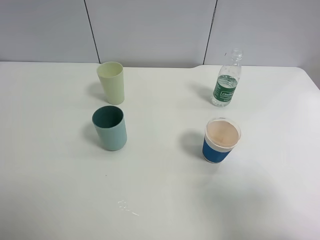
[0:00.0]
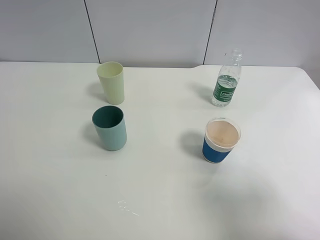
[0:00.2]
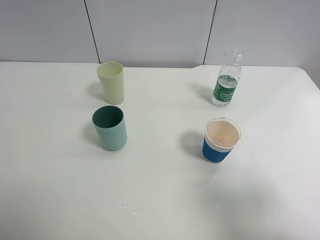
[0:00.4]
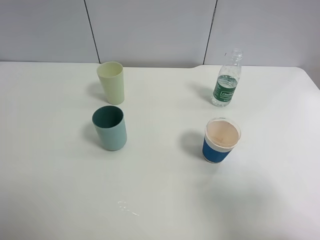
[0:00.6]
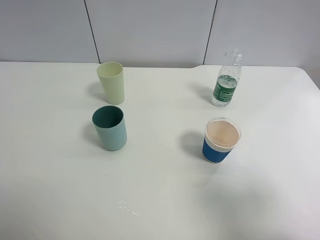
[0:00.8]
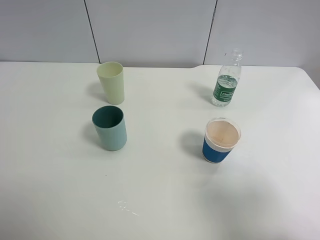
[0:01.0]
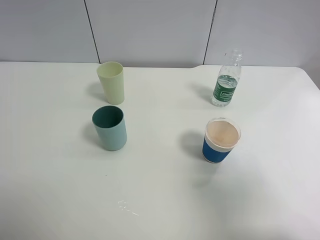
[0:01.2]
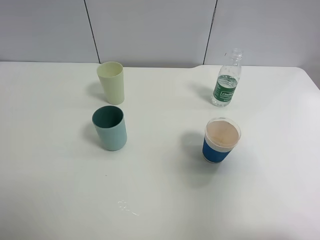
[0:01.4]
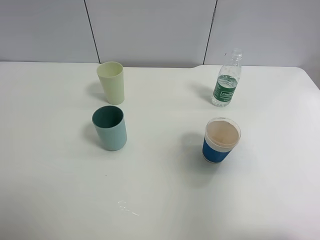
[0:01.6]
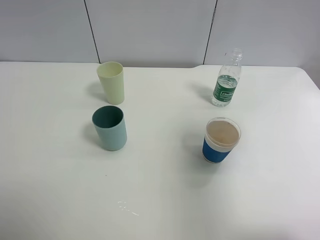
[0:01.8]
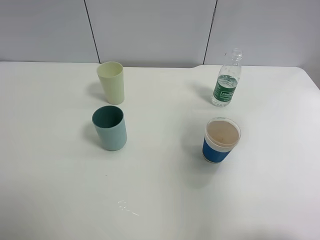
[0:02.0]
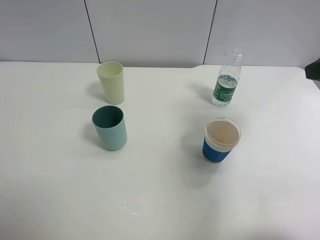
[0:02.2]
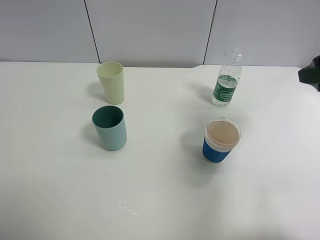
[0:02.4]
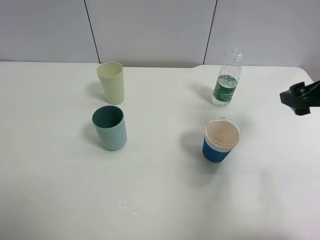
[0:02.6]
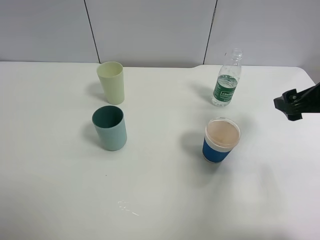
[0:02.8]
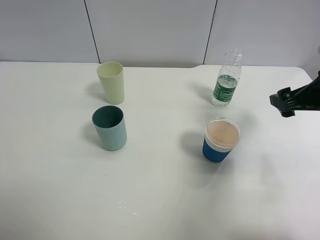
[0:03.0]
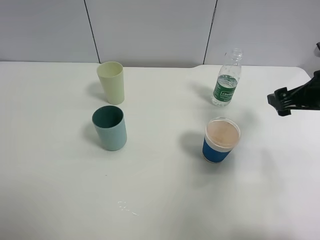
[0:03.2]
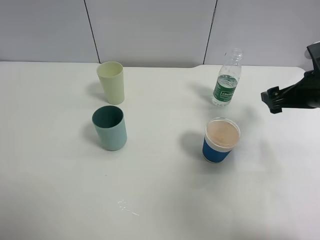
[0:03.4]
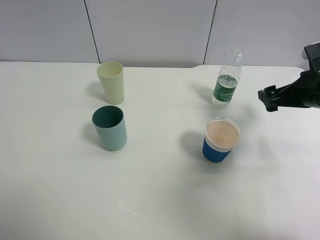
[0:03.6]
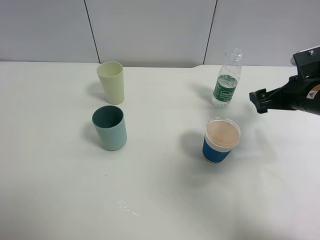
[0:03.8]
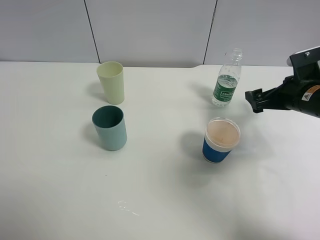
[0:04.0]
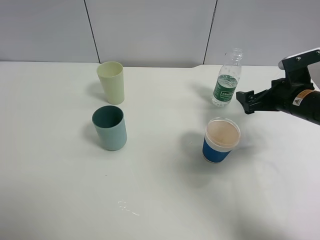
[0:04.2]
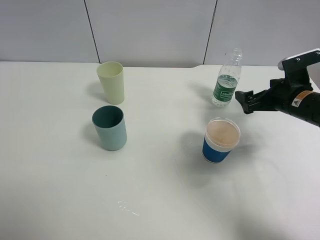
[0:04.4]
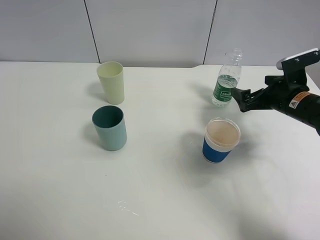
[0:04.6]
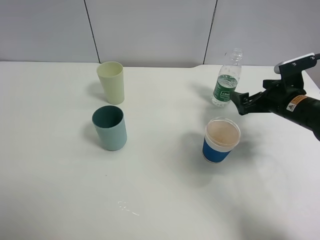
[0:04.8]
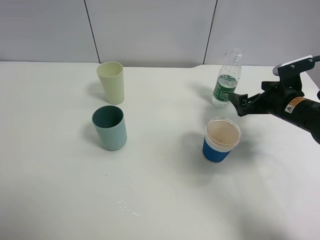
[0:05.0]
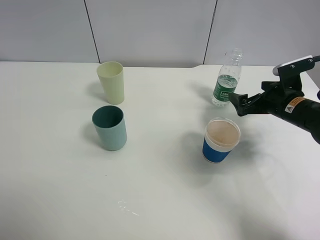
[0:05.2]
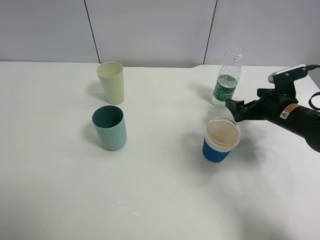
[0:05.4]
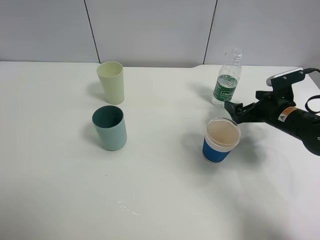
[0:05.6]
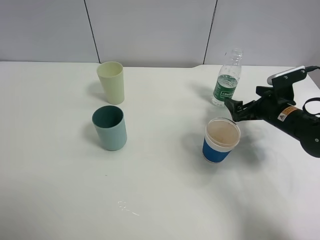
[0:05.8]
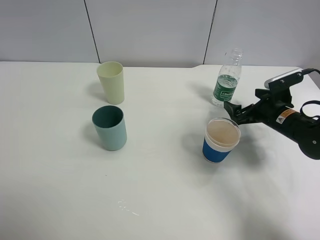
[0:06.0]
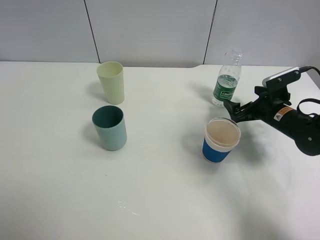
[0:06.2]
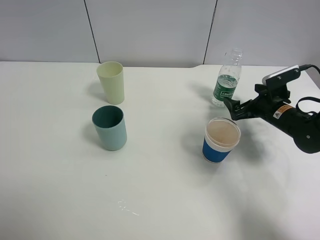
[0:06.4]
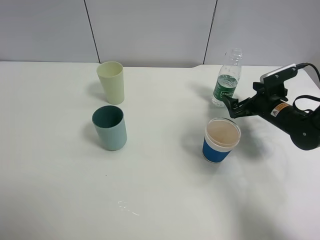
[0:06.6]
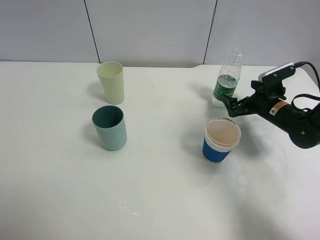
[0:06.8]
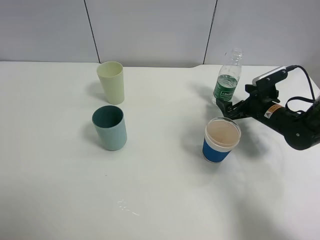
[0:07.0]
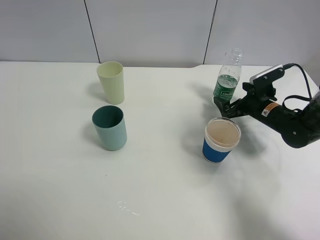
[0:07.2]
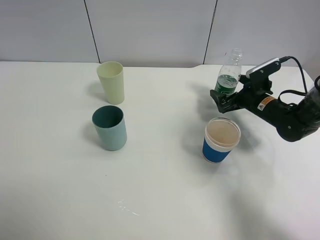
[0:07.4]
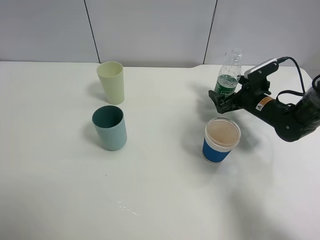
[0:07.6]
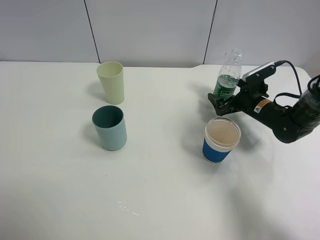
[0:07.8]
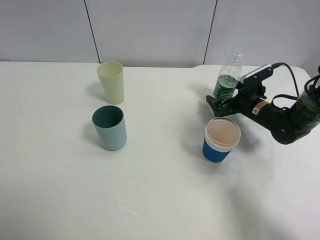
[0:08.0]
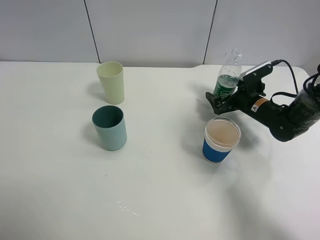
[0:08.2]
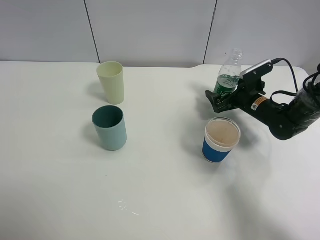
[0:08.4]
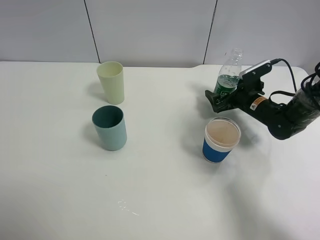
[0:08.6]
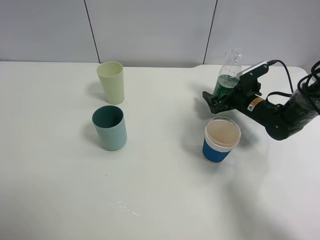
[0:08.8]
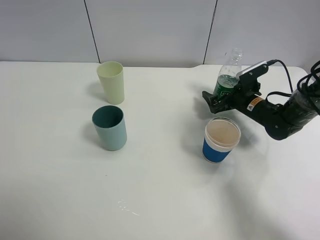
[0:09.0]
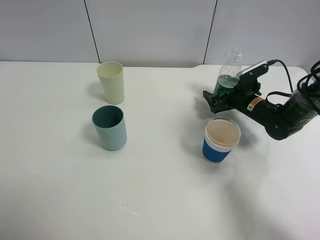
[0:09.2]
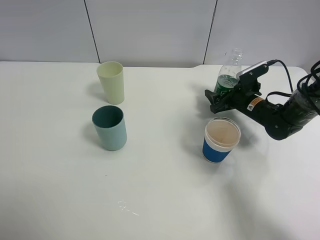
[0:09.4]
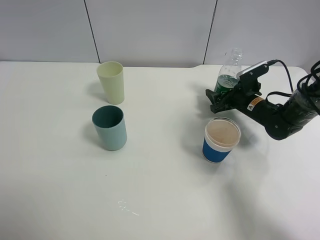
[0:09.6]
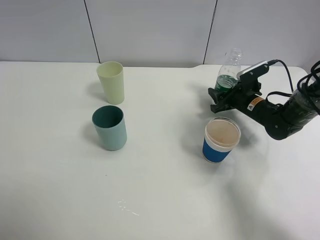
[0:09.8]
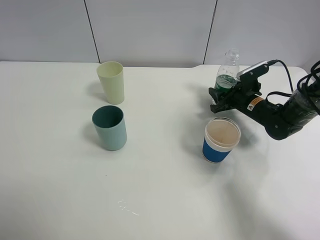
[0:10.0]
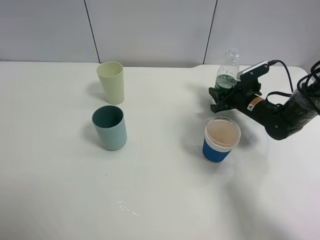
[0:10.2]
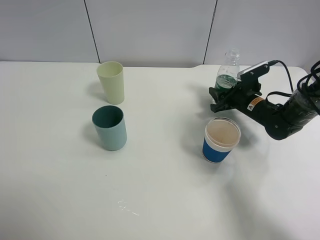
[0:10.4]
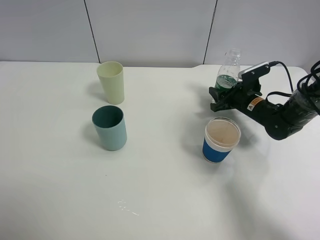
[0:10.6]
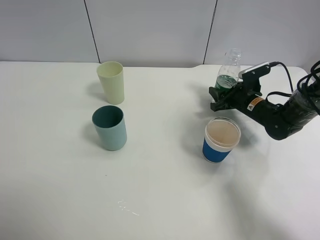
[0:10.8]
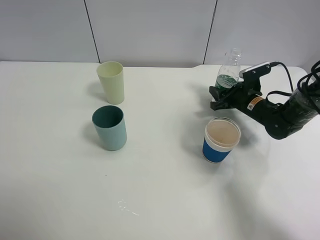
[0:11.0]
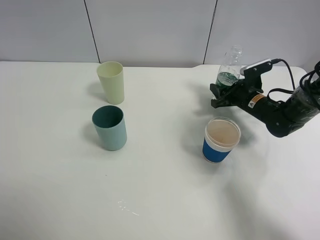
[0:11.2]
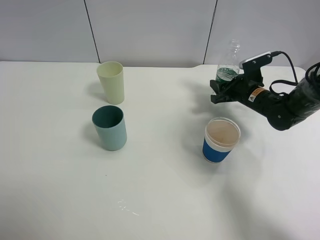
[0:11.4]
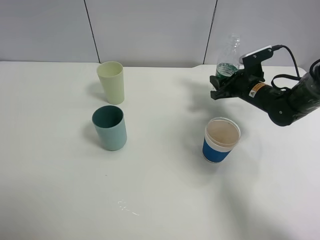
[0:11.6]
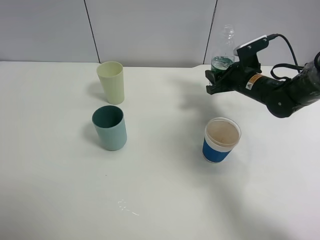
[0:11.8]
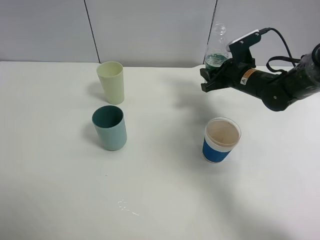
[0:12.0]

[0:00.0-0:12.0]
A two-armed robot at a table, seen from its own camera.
Task of the whole recording: use a clamp to hold the bottle of the drink, pour the beverage into a random cup, then clamp the cup containing the drink and pour the drink into another random cup.
Step, 0:00.0 to 0:11.6: Pick up the water bottle with right gripper.
0:00.0 to 0:01.6: The right gripper shifts about 10 cm upward and forward.
0:01.6 to 0:03.0: The right gripper travels forward and downward by some 20 cm.
0:03.0 to 0:04.4: The right gripper shifts about 10 cm downward and forward.
0:04.4 to 0:06.0: The right gripper is displaced downward by some 5 cm.
0:06.0 to 0:07.6: The right gripper is displaced forward by some 5 cm.
0:07.6 to 0:09.0: The grippers make only small movements.
0:09.0 to 0:10.4: The right gripper closes up.
0:10.4 to 0:12.0: The right gripper goes roughly 10 cm upward.

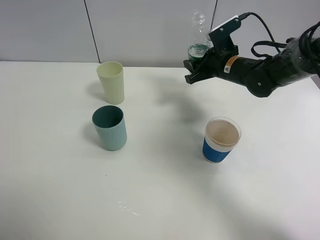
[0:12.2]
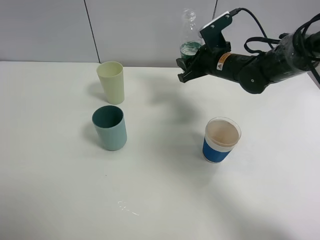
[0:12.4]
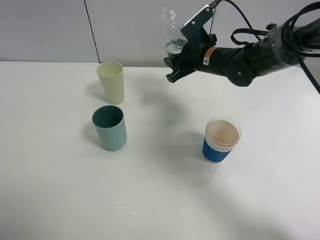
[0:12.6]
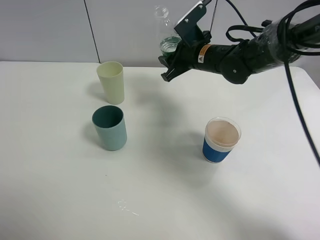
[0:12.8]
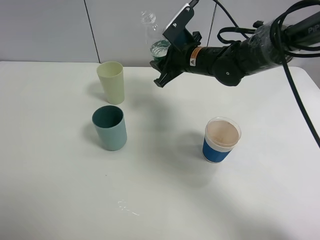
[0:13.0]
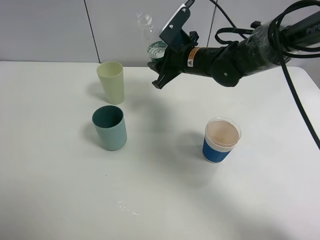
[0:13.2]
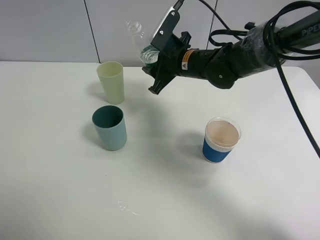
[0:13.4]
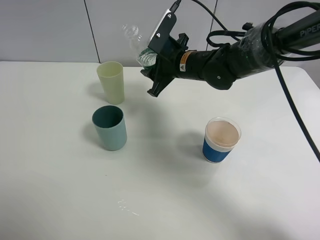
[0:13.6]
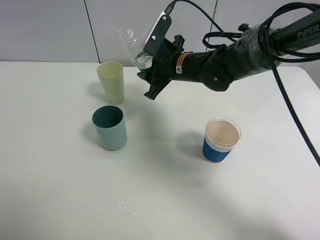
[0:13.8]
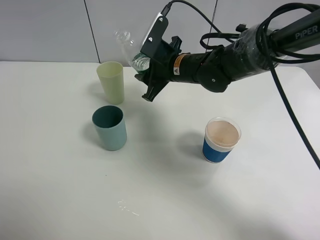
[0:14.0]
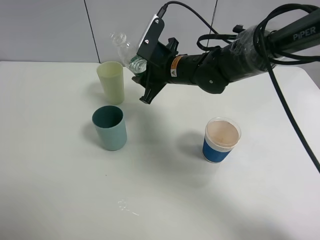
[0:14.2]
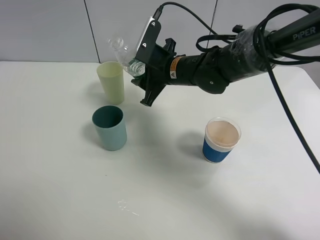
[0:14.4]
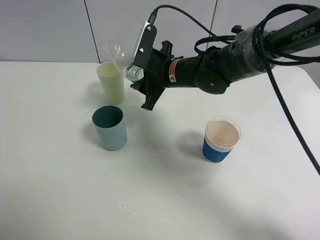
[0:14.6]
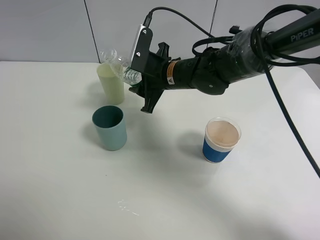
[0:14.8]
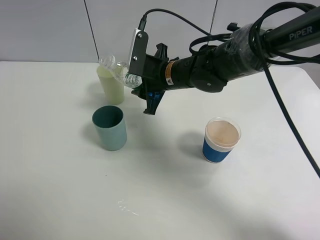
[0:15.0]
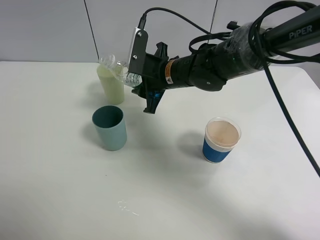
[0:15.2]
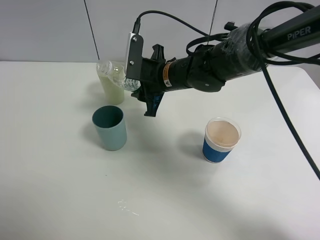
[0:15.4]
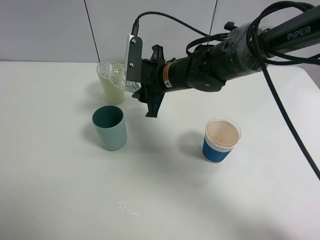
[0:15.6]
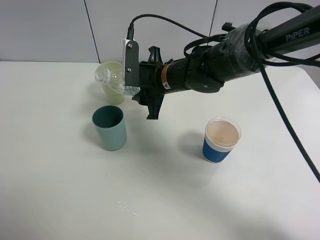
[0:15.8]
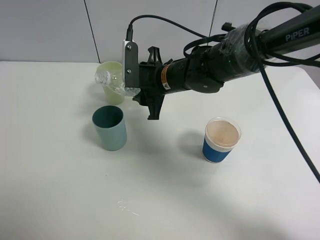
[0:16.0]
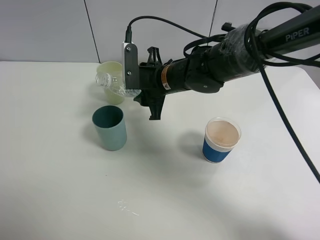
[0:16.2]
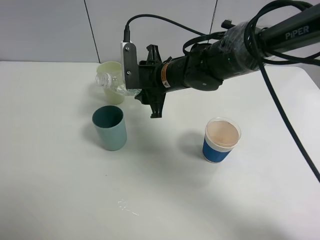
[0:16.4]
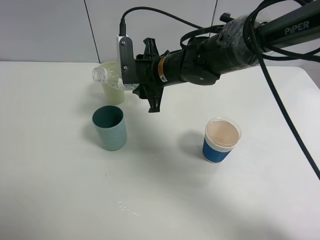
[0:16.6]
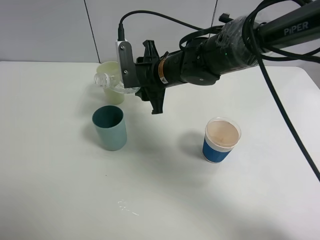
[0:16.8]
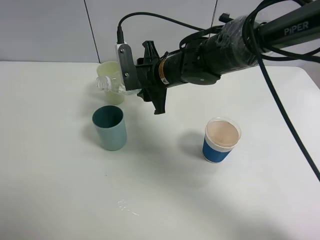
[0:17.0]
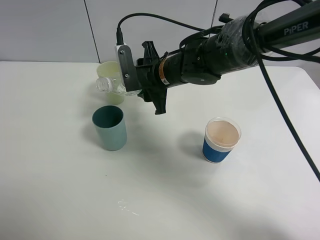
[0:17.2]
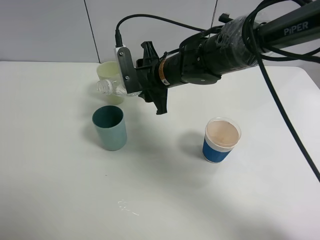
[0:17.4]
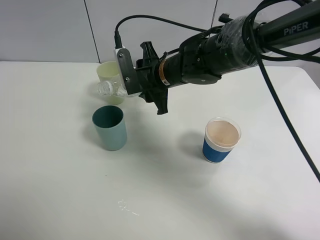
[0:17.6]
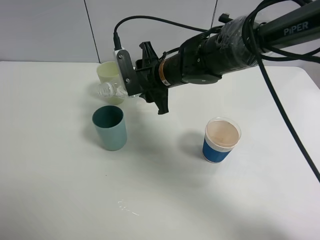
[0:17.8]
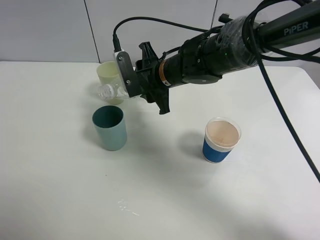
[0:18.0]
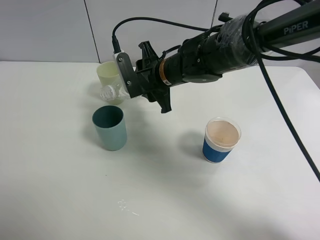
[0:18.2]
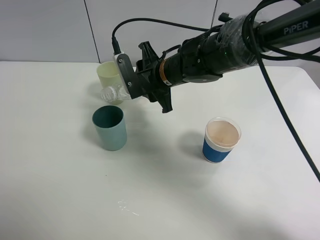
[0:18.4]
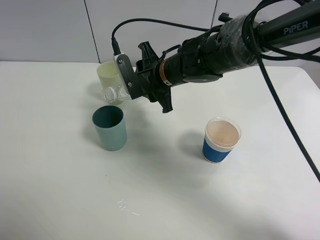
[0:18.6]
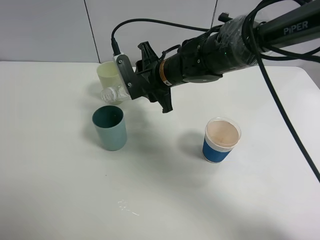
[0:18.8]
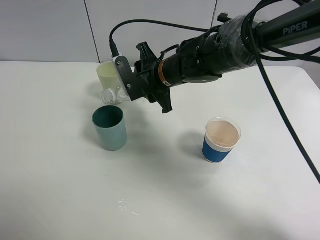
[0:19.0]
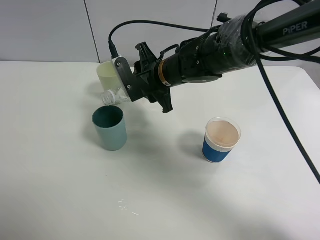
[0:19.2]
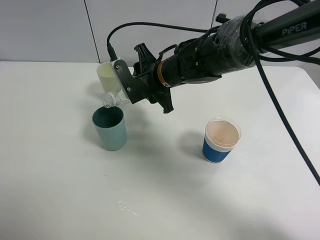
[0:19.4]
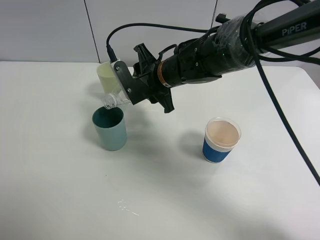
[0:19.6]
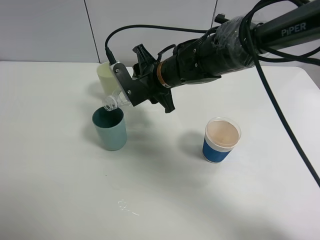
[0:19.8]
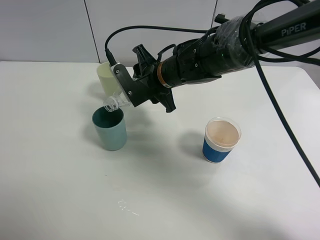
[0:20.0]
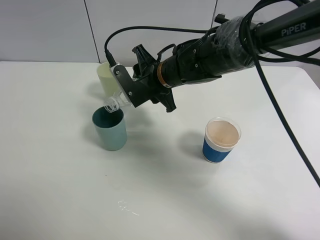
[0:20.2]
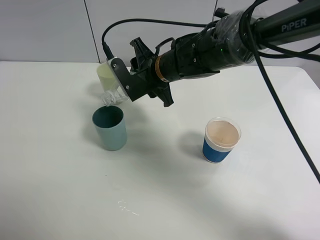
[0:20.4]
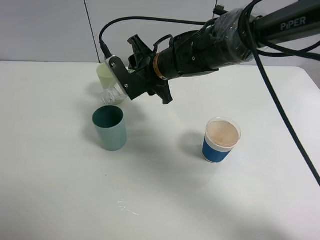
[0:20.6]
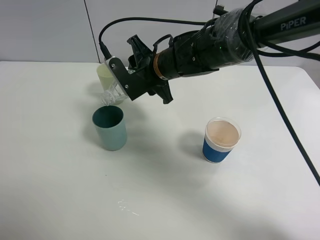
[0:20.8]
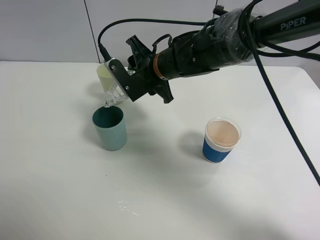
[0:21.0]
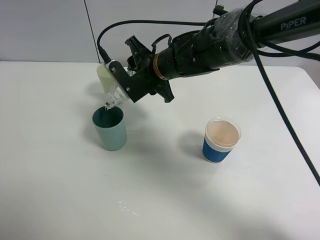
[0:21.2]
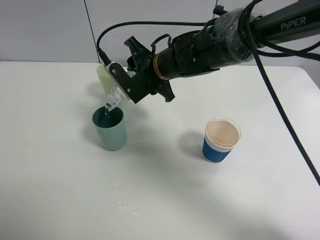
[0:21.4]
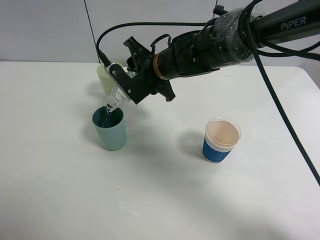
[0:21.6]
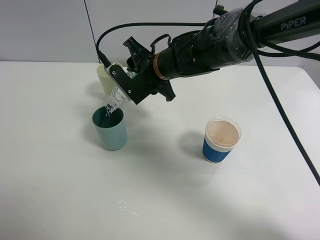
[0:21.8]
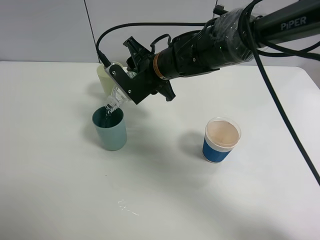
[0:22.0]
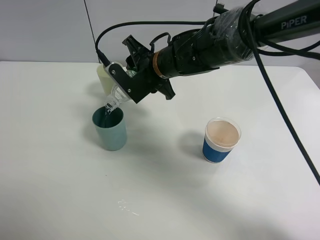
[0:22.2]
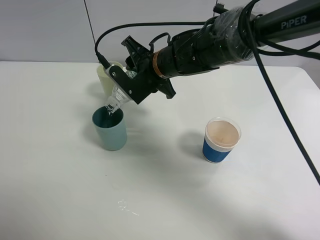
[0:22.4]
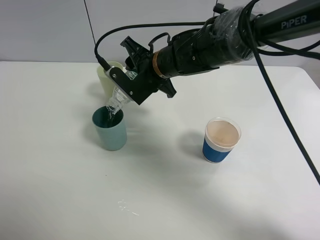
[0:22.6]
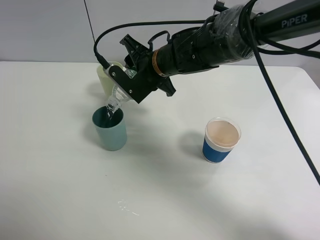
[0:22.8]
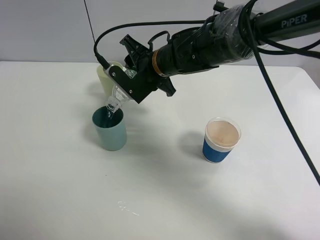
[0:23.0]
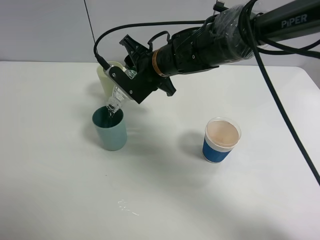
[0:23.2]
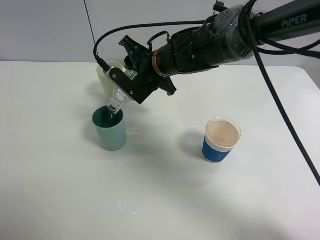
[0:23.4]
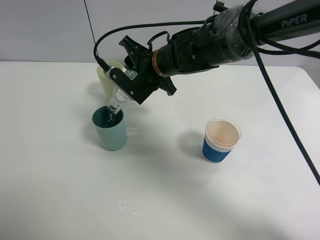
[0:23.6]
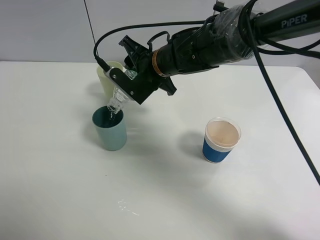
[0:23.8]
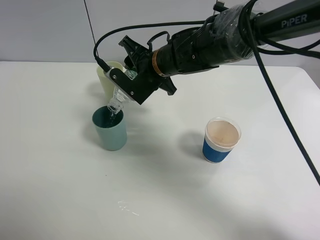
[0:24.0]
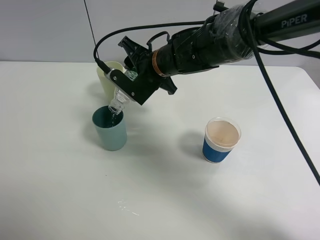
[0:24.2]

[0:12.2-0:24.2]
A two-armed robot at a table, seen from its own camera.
Task of the whole recording: use a clamp to hold the bottle of the drink, pour the beverage into a random cup, then clamp the cup containing the drink and pour the drink into another random cup.
0:12.2 to 0:13.8: The right gripper is displaced to the left by roughly 10 cm.
0:13.8 to 0:15.2: The grippers move only a little.
0:15.2 to 0:16.6: The grippers stay close to where they were, moving slightly.
0:16.6 to 0:18.2: There are only small adjustments of the grippers.
0:18.2 to 0:21.2: The grippers make only small movements.
0:21.2 to 0:22.6: The grippers stay close to where they were, moving slightly.
0:22.6 to 0:24.2: Both grippers stay put.
